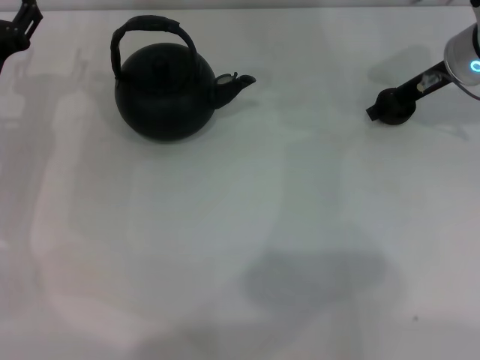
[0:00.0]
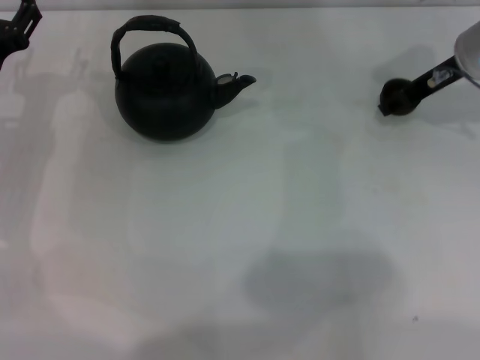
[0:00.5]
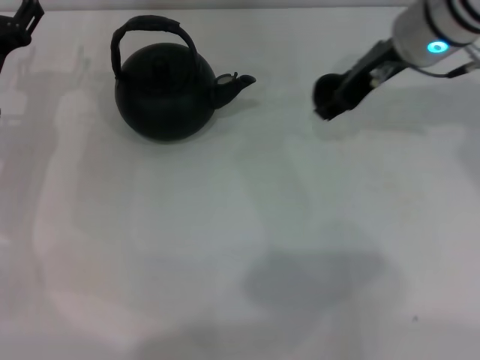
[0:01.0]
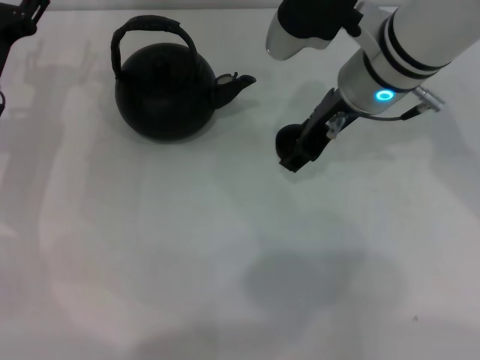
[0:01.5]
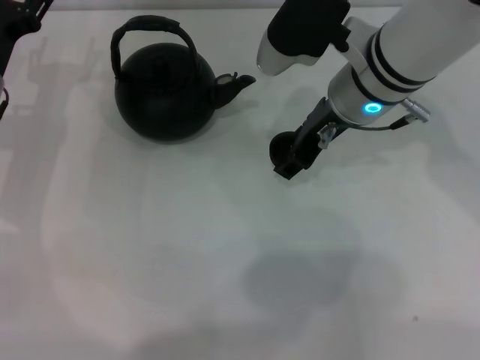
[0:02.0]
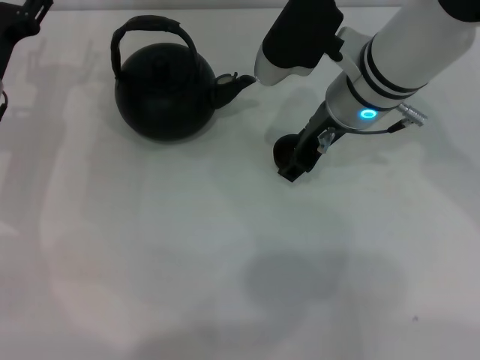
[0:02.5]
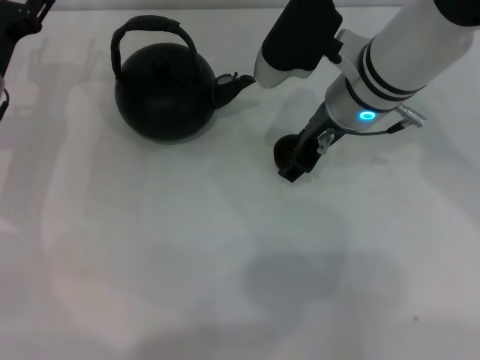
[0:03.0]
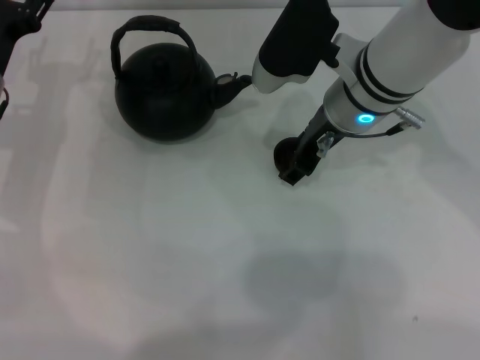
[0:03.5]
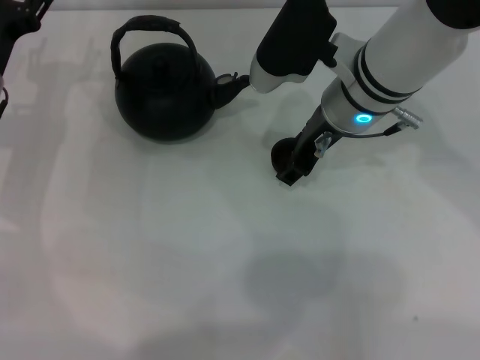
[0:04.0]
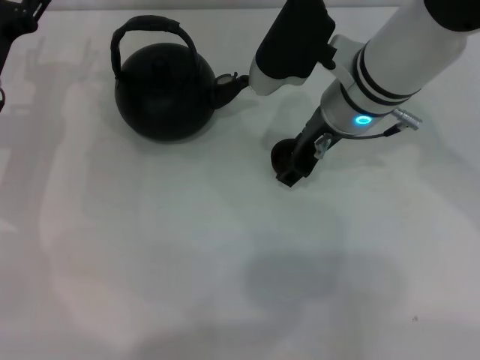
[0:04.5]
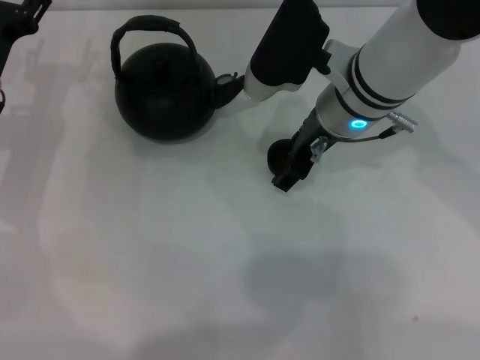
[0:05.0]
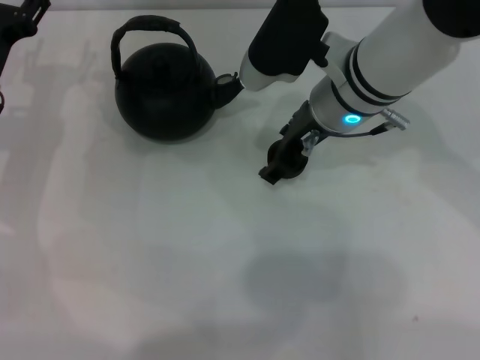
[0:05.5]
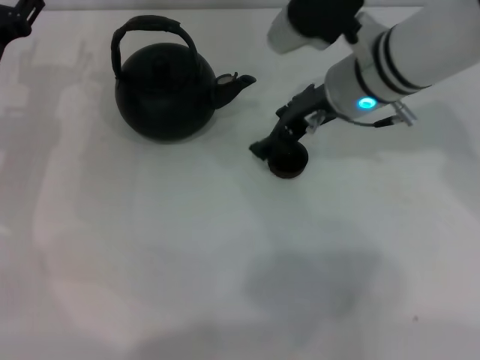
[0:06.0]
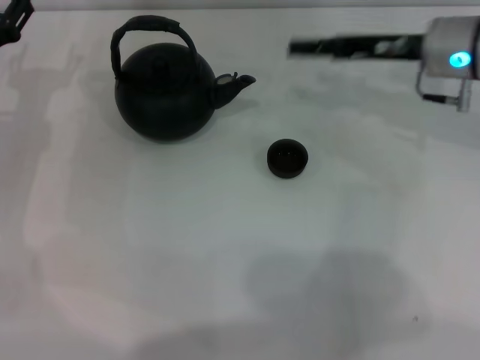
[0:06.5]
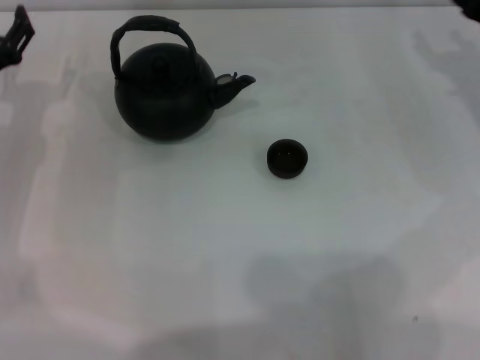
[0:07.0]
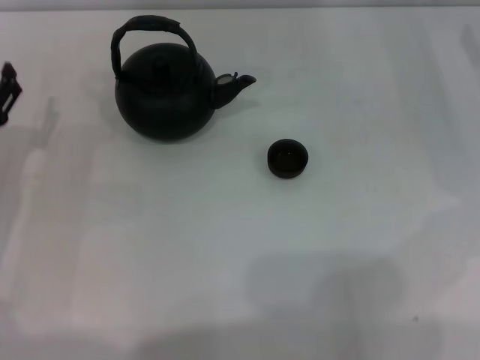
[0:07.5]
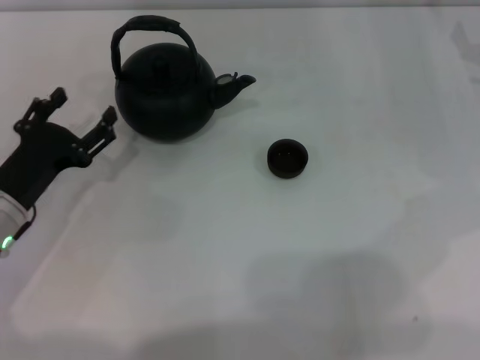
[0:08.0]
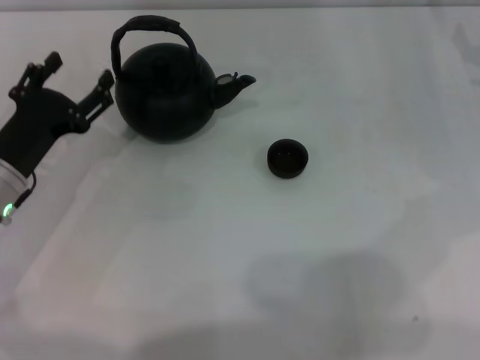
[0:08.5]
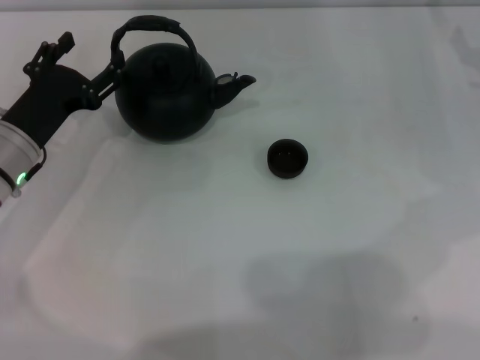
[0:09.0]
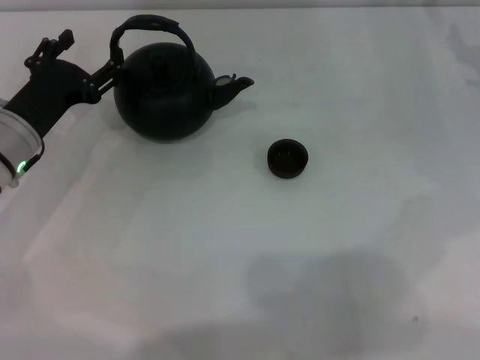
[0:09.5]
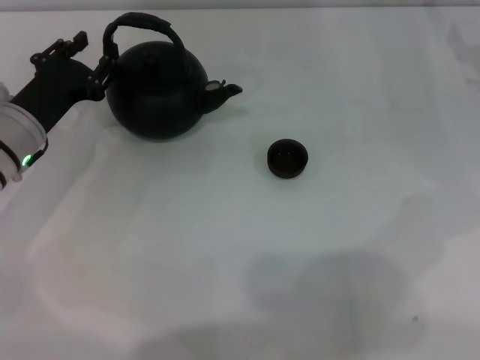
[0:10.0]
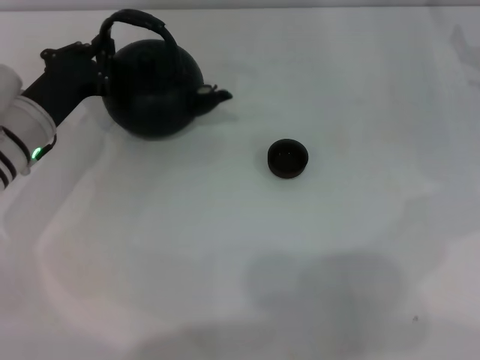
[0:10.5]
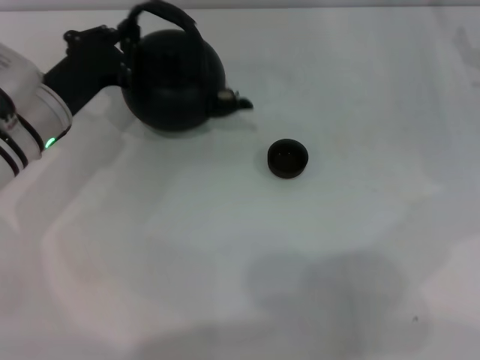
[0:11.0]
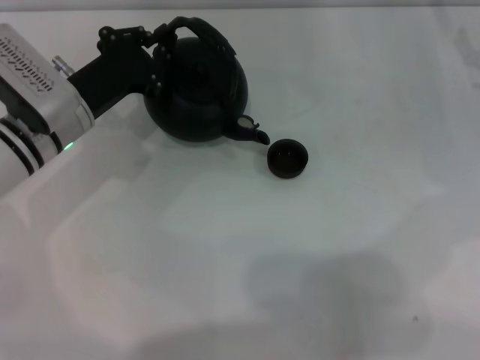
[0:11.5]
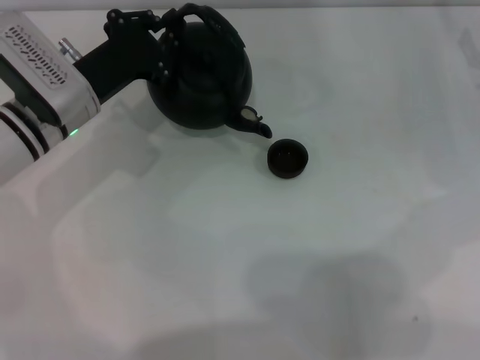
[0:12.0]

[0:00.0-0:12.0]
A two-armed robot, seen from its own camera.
Task of the whole recording: Grasp the handle of the teapot with one hand and pour tea into the teacup.
Step, 0:01.0 to 0:06.0: Place the teacup in the center of view with the right gripper.
Step, 0:06.5 to 0:11.5: Pick up the teapot with the left gripper.
0:00.0 to 0:02.0: The right gripper goes roughly 15 cm to the left and backward, and closes up.
0:02.0 to 0:04.0: The grippers make only small movements.
0:04.0 to 0:06.0: The right gripper opens.
0:06.0 to 0:08.0: The right gripper is displaced to the right by some 20 cm. The left gripper heads backward, covering some 10 cm.
0:08.0 to 0:10.0: The left gripper goes some 10 cm forward.
0:10.0 to 0:12.0: The left gripper travels to the right by about 5 cm, and closes.

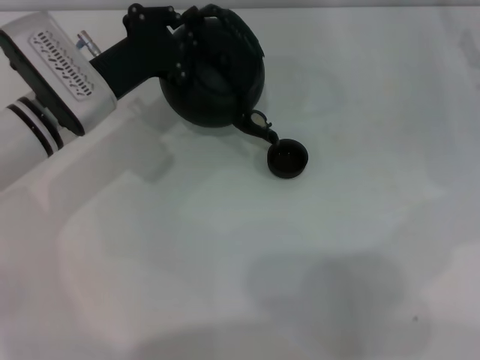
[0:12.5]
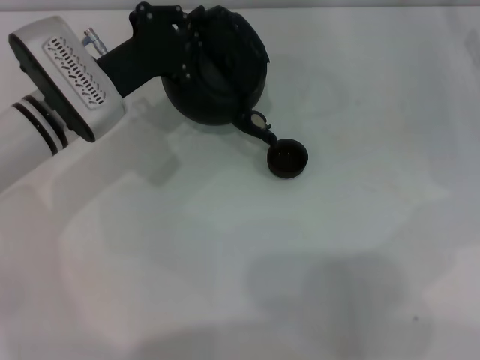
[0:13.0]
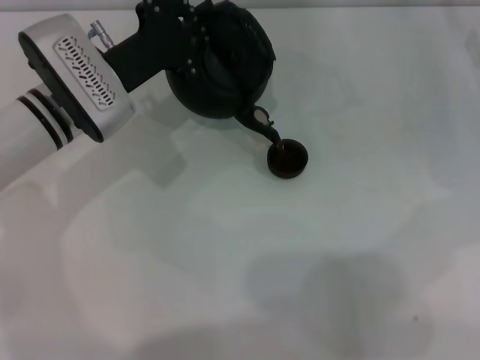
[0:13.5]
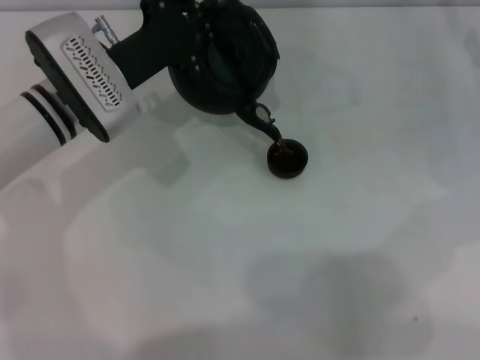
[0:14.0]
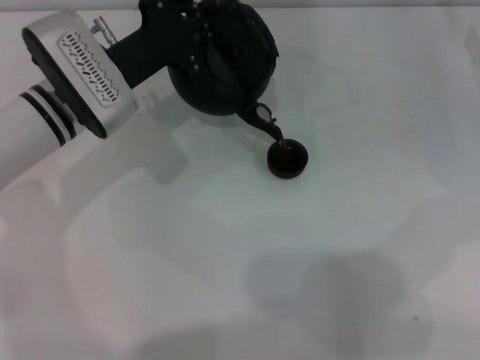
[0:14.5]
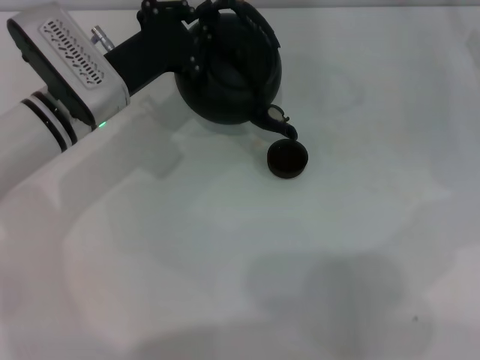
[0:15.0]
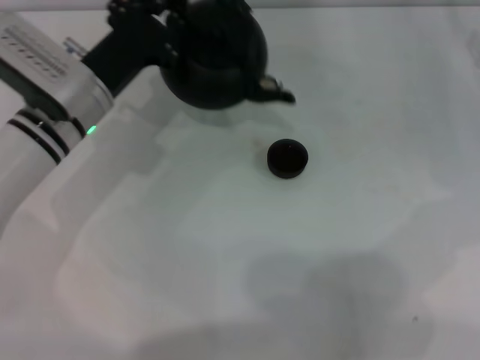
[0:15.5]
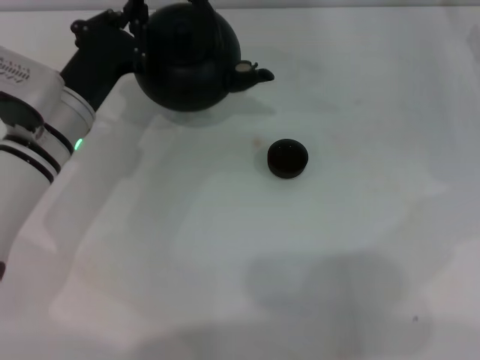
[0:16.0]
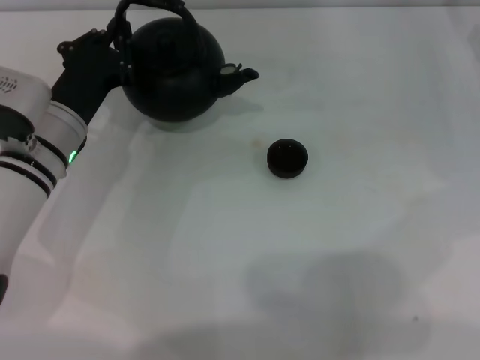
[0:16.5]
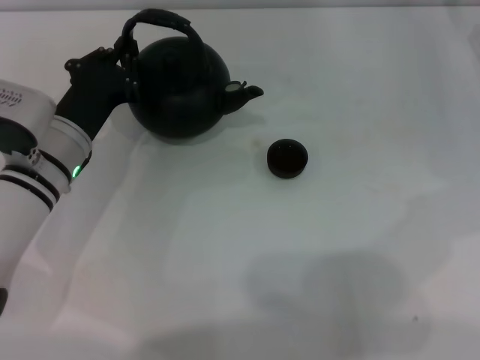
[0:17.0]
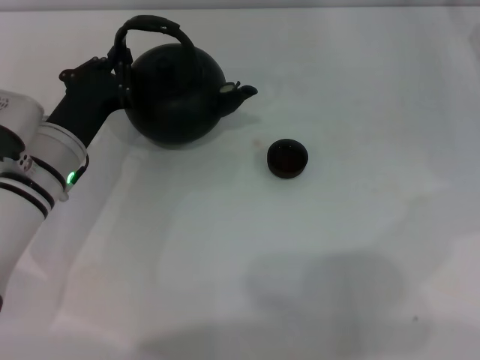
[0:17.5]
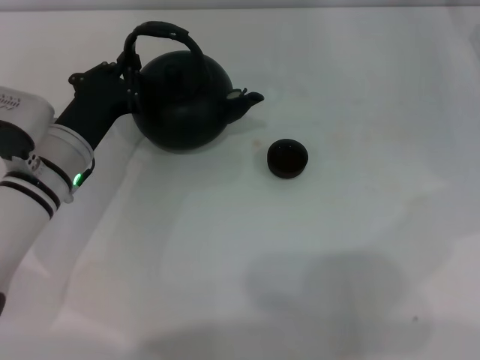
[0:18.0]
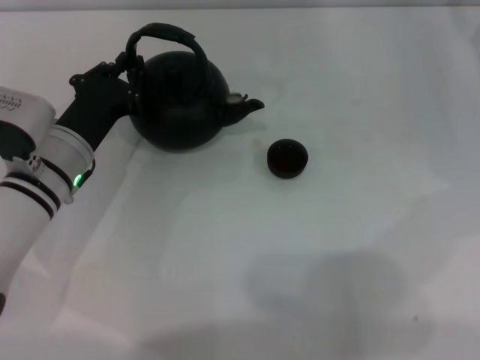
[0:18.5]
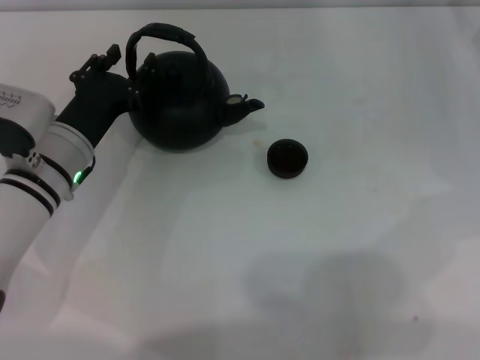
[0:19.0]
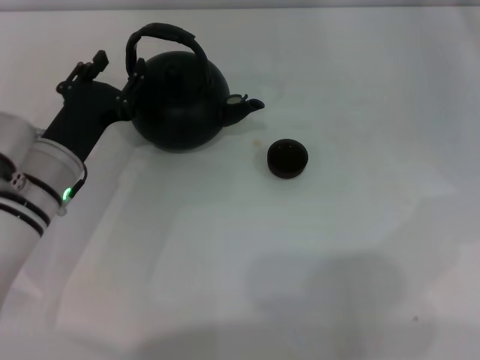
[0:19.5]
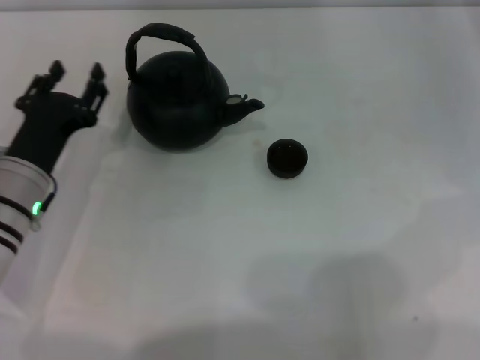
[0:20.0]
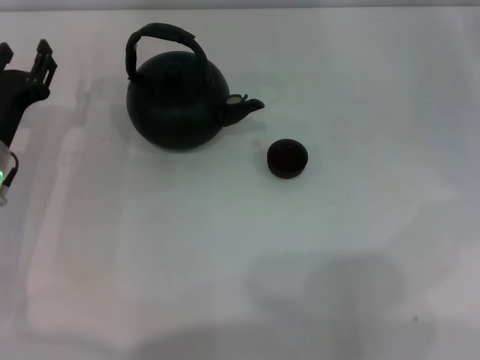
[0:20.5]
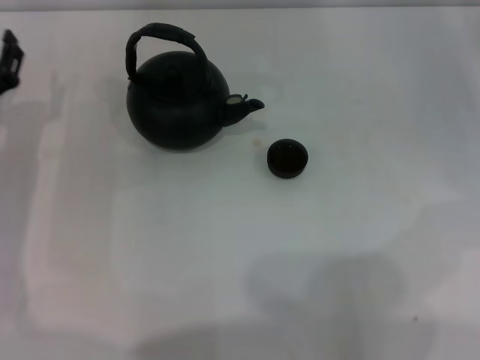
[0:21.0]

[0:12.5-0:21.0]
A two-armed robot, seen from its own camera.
Task of the whole recording: Grasp the handle of the teapot with one hand and pour tea into the teacup.
Step, 0:12.5 to 0:15.0: Pour tea into the teacup with the left gripper.
Step, 0:15.5 to 0:19.0: Put down the teapot with the left gripper.
0:12.5 to 0:14.5: The grippers move only a little.
0:14.5 to 0:16.5: The left gripper ends up roughly 5 cm from where it was.
0:16.5 to 0:19.0: The left gripper opens its fingers.
0:19.0 to 0:21.0: The left gripper is displaced to the left by roughly 10 cm.

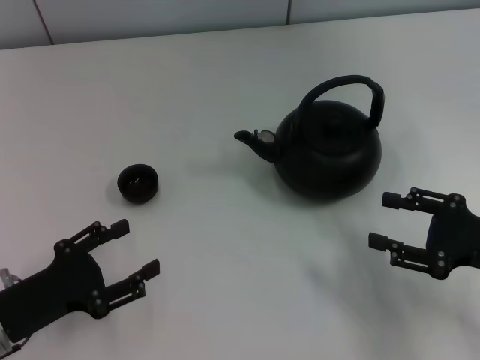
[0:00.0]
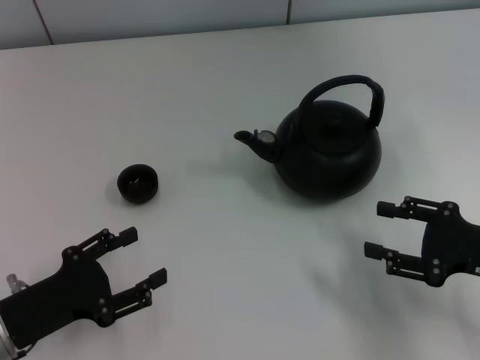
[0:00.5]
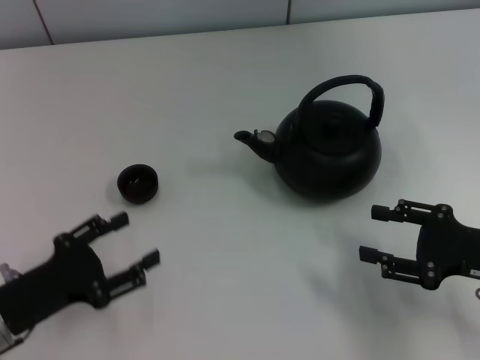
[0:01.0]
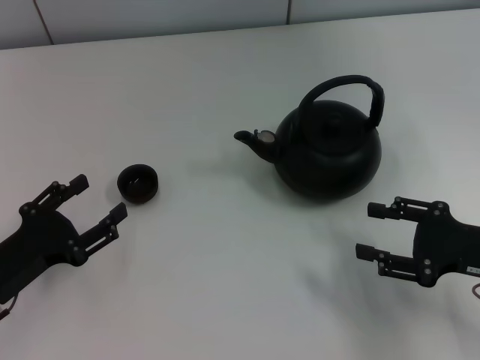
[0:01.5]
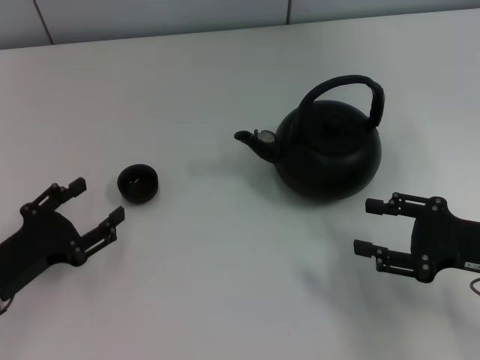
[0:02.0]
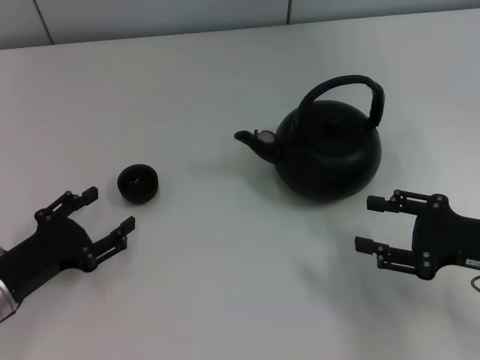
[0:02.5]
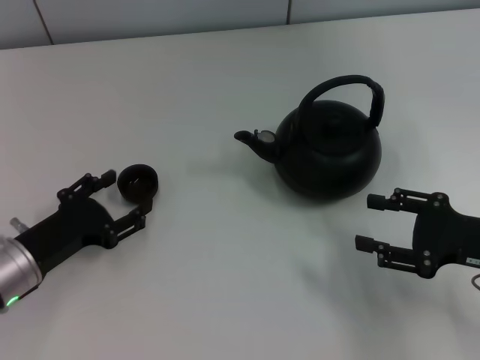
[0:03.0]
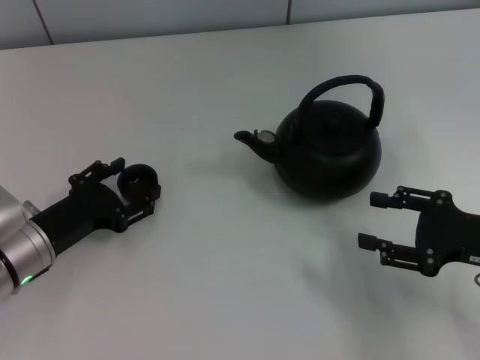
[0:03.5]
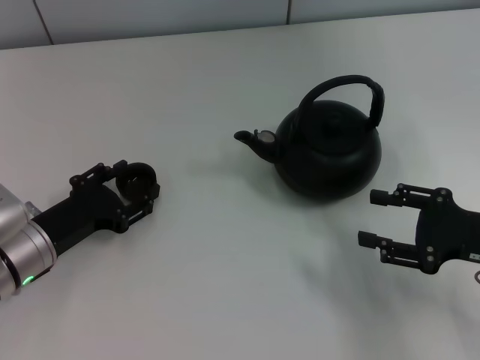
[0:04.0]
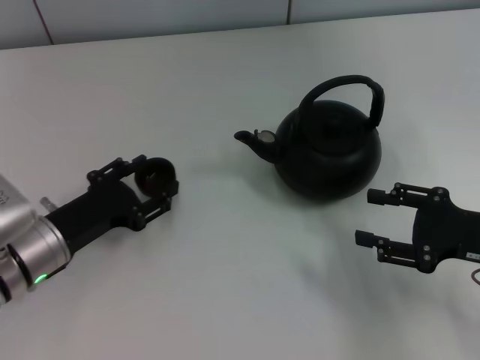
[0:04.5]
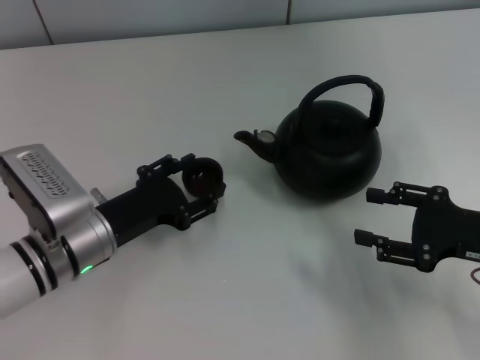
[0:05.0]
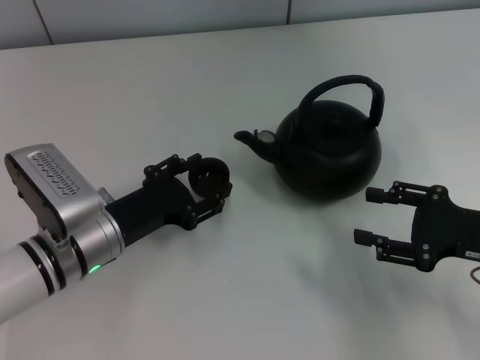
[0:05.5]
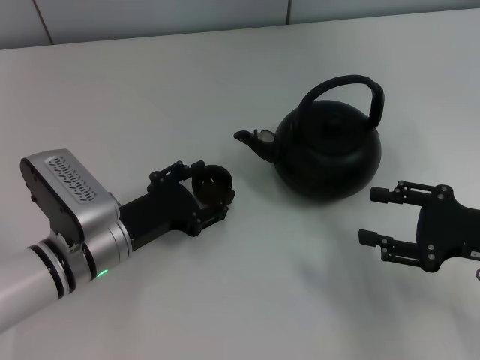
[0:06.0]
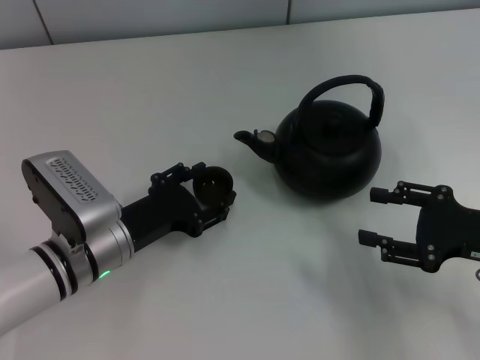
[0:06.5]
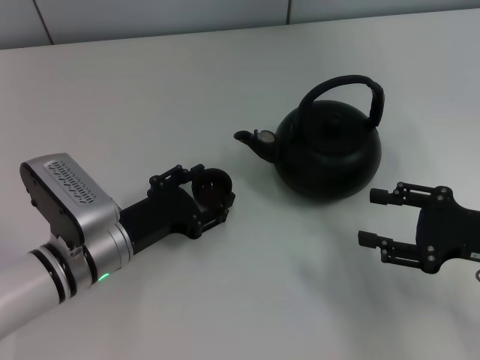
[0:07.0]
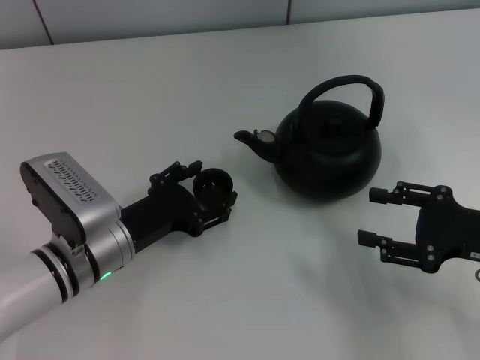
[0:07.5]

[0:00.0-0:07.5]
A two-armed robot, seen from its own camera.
Task of the whole recording: Grasp the handle of the teapot with one hand and pour tea into the teacup.
Step, 0:00.0 to 0:04.5: Pick up the teacup with the left gripper.
0:00.0 to 0:02.0: There are only small adjustments of the grippers.
0:02.0 to 0:04.0: The left gripper goes about 5 cm forward, and closes.
0:04.0 to 0:05.5: The left gripper goes about 5 cm to the right.
0:05.5 to 0:07.5: Both grippers stay about where they are.
